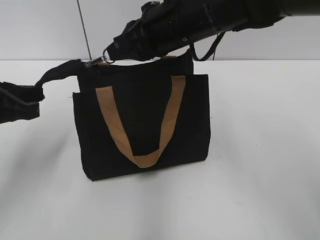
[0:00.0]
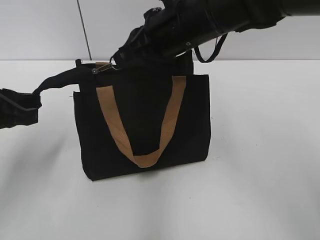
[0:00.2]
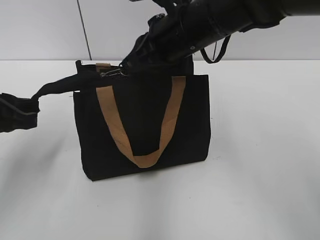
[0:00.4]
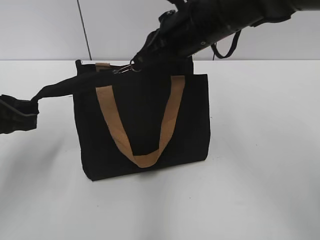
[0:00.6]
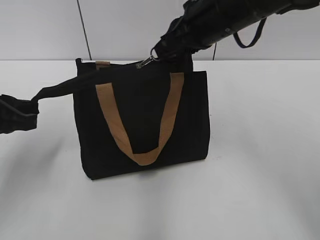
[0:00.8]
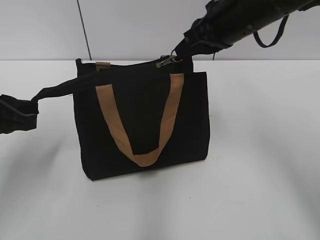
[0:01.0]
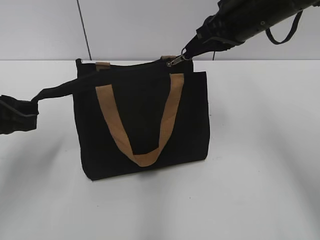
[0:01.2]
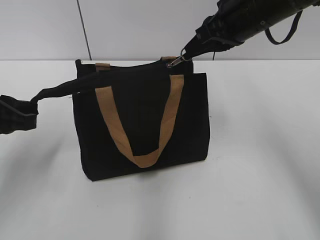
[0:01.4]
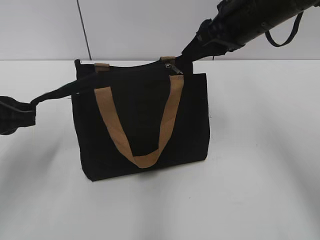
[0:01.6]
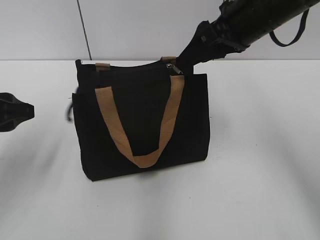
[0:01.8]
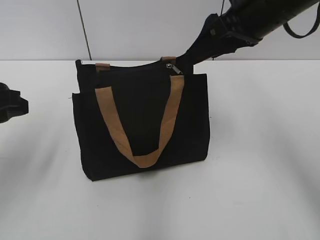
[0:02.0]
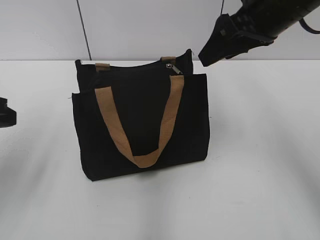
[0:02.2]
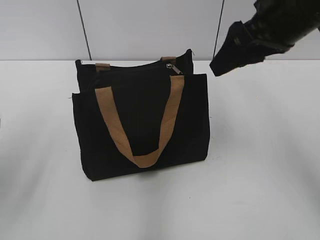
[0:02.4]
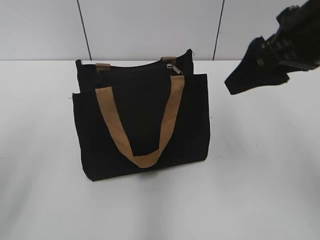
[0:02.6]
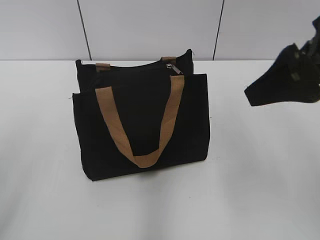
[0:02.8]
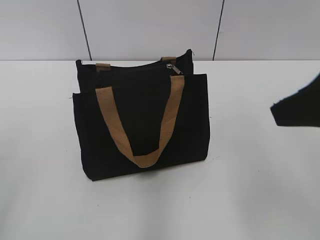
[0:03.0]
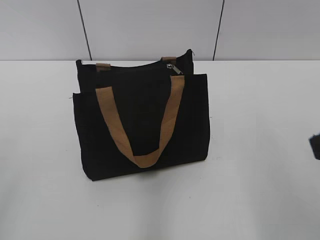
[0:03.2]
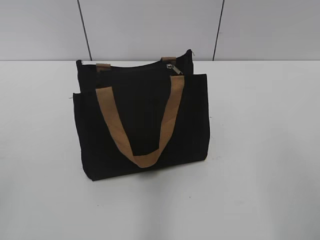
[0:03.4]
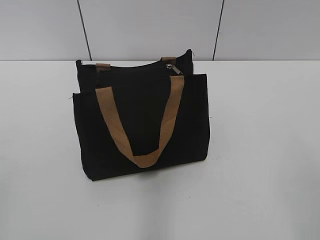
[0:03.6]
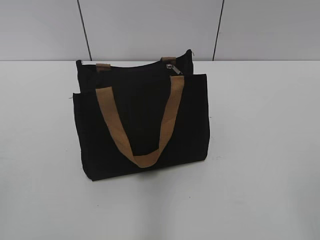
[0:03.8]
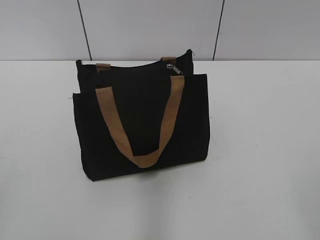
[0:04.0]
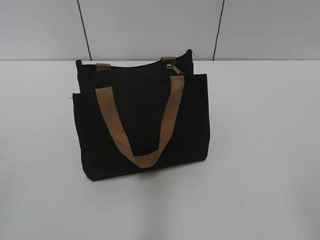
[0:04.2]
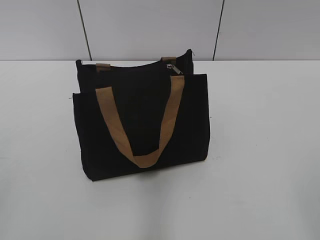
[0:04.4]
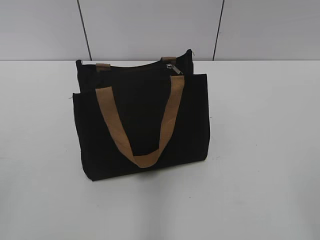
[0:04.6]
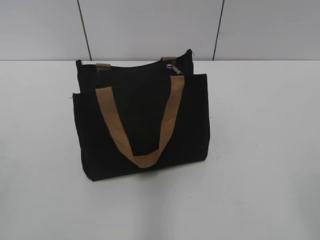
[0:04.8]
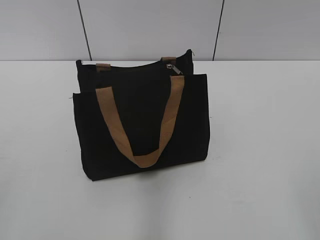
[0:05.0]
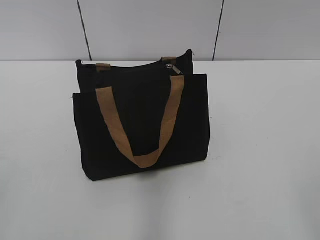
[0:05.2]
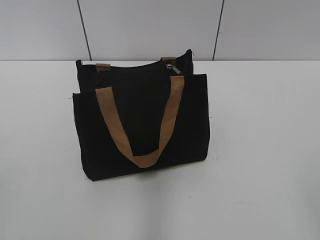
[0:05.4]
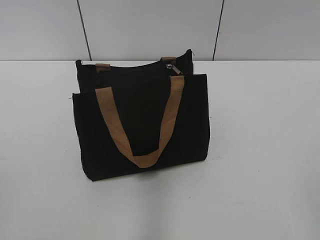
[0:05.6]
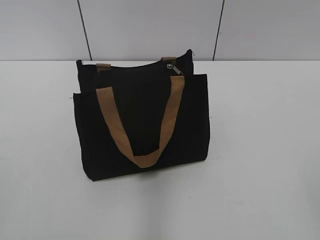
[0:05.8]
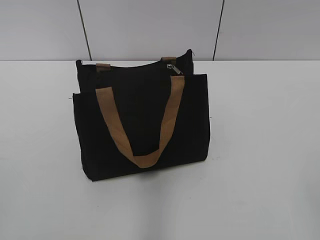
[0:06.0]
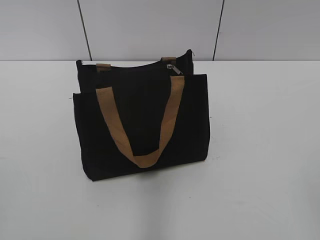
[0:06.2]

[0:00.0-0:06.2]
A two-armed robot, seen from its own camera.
0:00.0 to 0:01.6: The right gripper shifts approximately 10 cm to the right.
0:01.6 to 0:03.2: The left gripper heads backward and upward, covering about 20 cm, and opens up, while the right gripper moves backward, about 20 cm, and opens.
